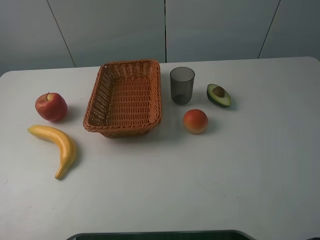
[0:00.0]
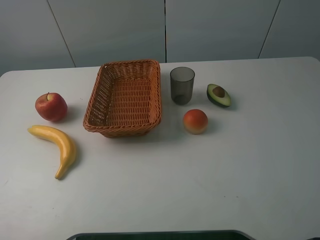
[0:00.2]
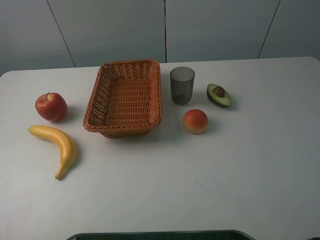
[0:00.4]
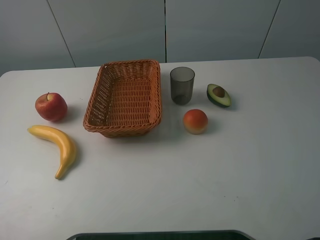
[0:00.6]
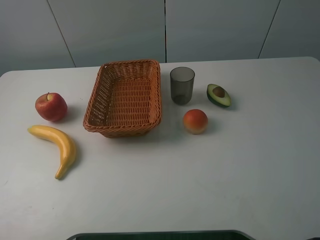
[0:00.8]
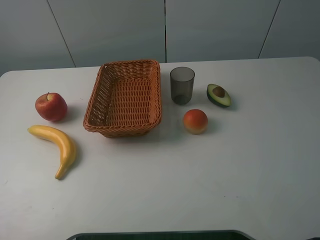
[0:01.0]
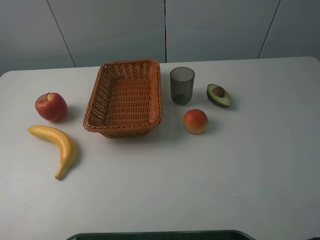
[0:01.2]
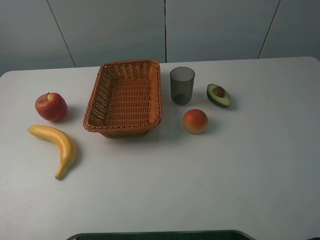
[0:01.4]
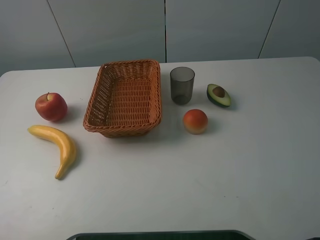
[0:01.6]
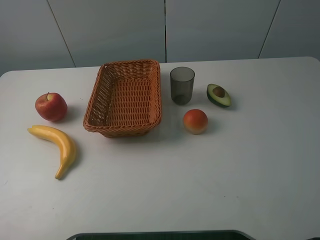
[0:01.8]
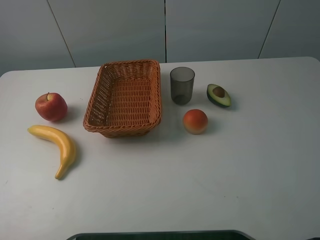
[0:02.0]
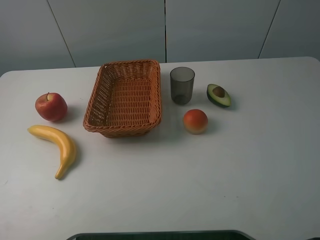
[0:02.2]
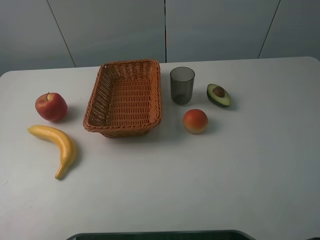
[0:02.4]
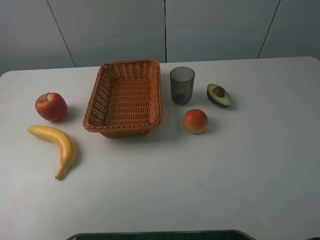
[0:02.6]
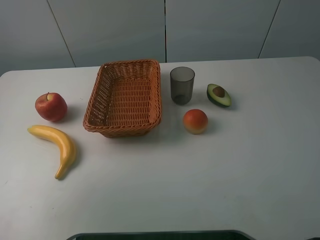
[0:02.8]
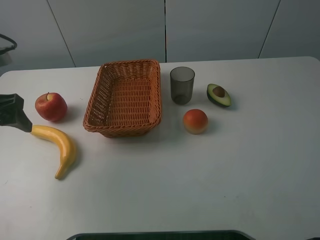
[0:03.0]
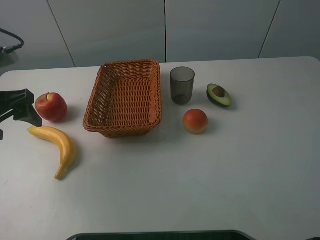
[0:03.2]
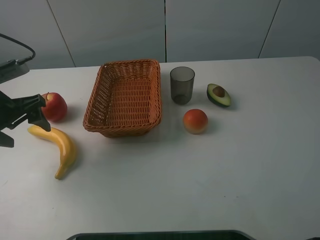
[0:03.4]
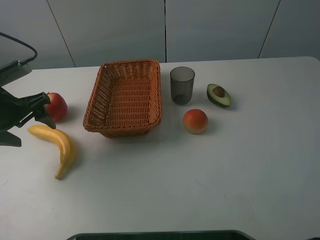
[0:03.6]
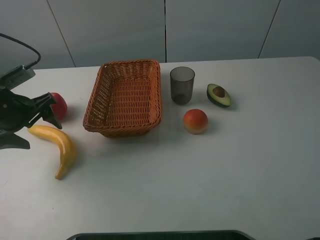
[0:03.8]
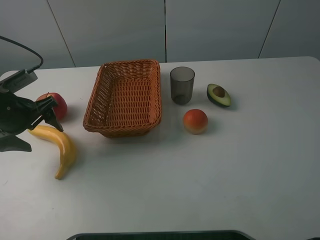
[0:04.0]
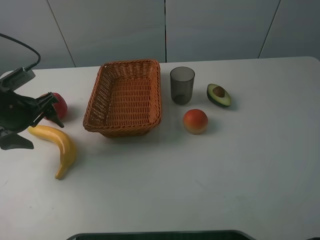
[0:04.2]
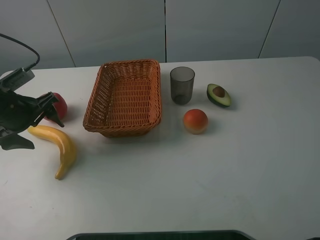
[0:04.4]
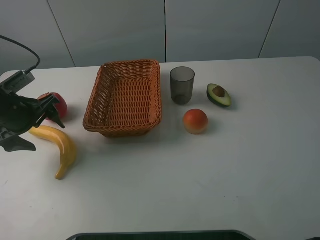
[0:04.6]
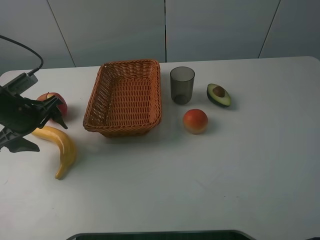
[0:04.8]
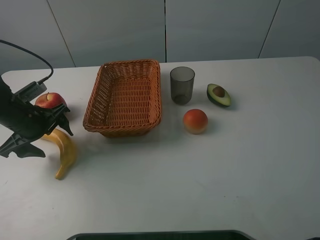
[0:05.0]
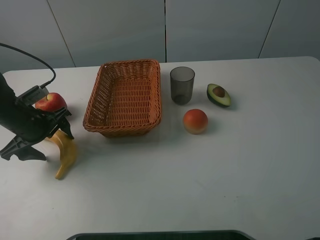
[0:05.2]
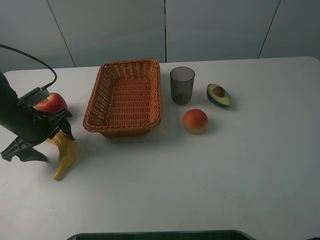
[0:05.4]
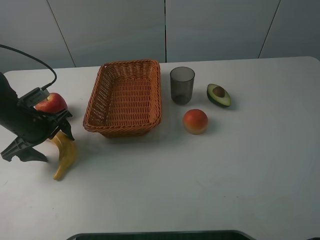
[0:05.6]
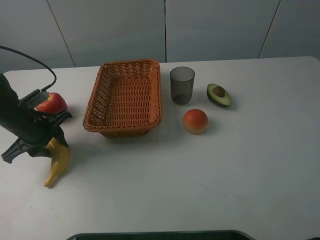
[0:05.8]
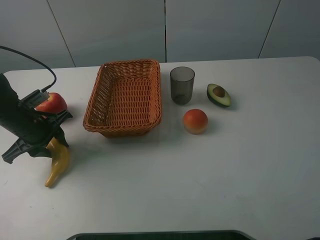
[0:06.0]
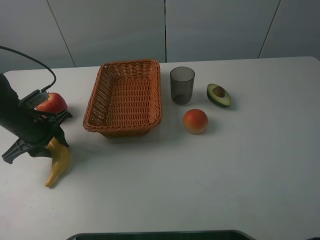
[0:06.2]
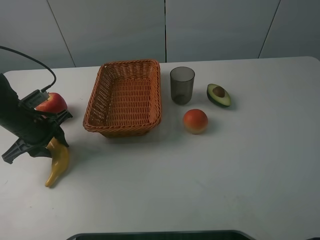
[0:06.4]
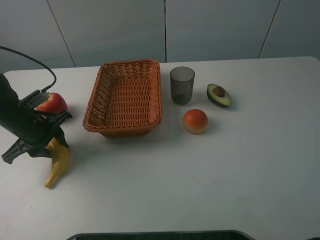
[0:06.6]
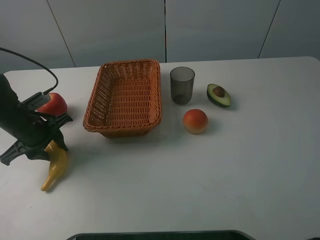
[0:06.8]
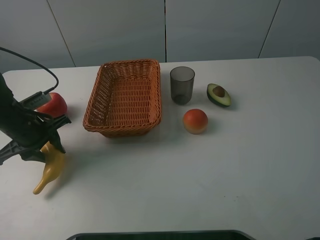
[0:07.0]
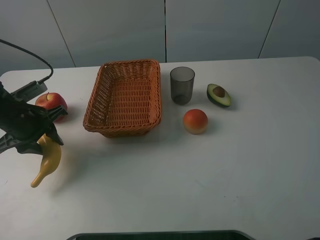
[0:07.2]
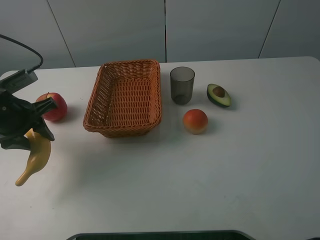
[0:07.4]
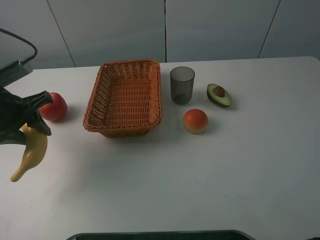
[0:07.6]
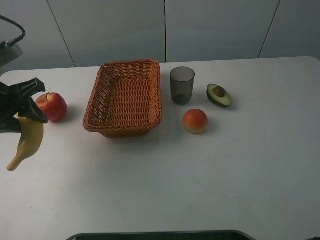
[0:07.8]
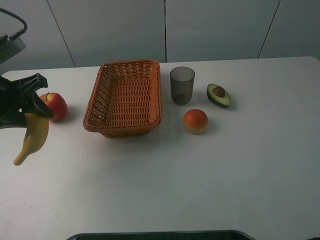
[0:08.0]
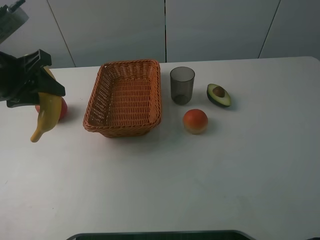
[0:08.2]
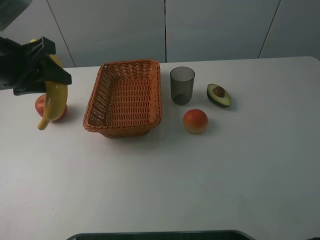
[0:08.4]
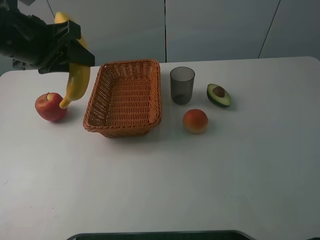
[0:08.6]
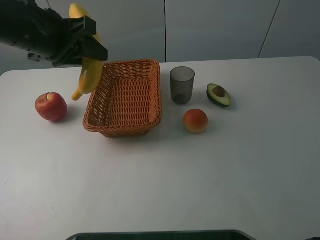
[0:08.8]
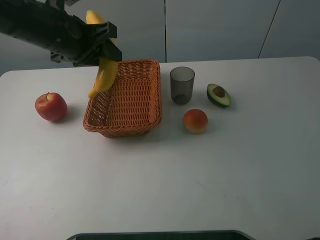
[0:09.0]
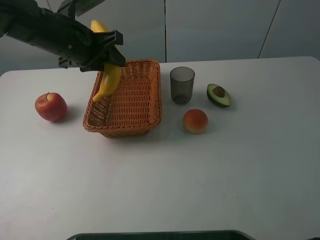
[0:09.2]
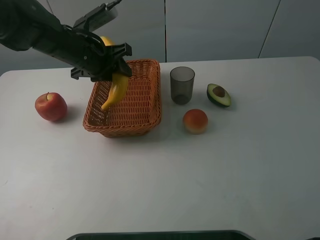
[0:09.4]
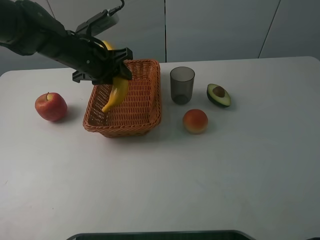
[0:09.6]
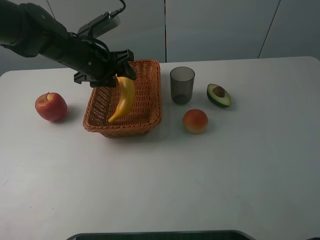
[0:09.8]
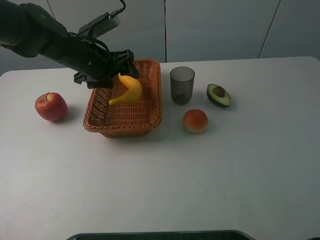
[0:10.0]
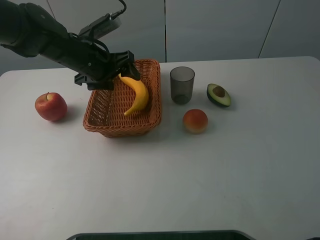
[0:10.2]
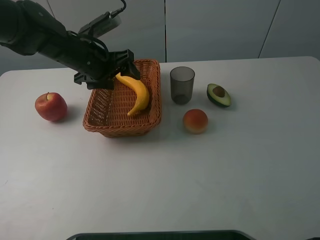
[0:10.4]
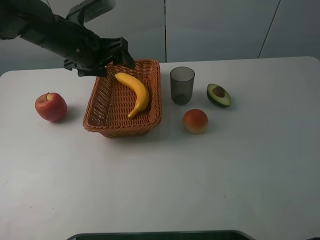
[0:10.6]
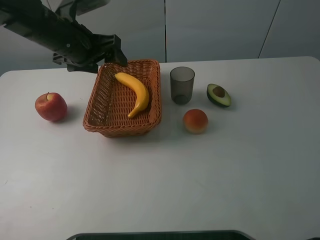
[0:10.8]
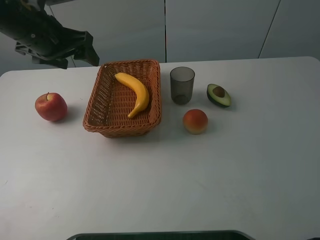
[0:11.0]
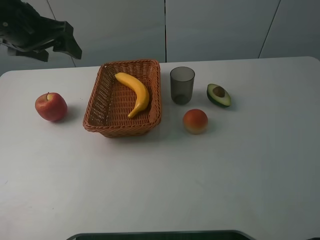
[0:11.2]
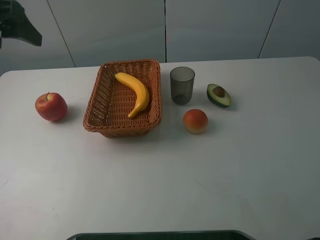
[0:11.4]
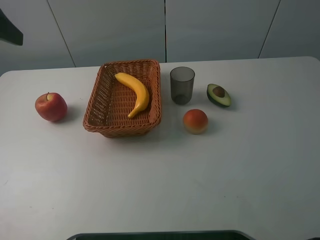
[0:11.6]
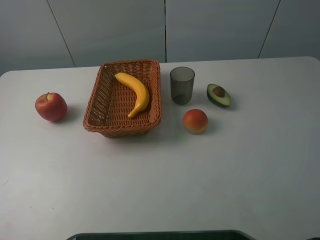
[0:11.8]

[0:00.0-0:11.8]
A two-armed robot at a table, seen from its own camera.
0:00.0 to 0:01.4: The two grippers keep their place.
0:01.4 to 0:03.0: The left gripper travels forward by about 20 cm.
0:03.0 to 0:04.4: The left gripper moves downward and forward, roughly 10 cm.
0:04.4 to 0:06.0: The left gripper travels downward by about 5 cm, and closes its fingers.
0:06.0 to 0:07.4: The left gripper travels upward by roughly 10 cm.
0:07.4 to 0:08.8: The left gripper travels upward and to the right by about 15 cm.
0:08.8 to 0:10.4: The left gripper moves downward and forward, roughly 10 cm, and opens its fingers.
0:10.4 to 0:11.8: The left gripper goes about 30 cm backward, upward and to the left.

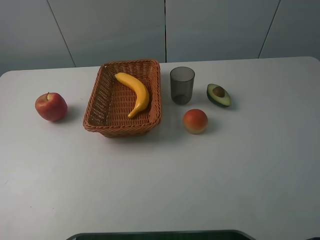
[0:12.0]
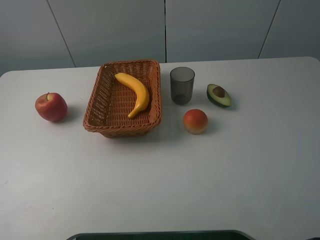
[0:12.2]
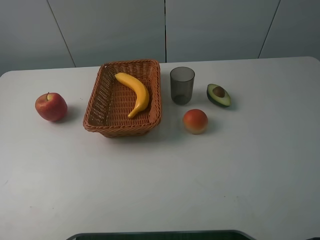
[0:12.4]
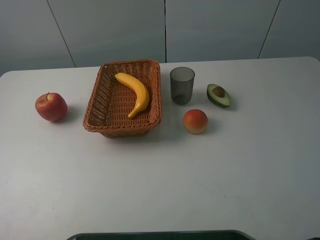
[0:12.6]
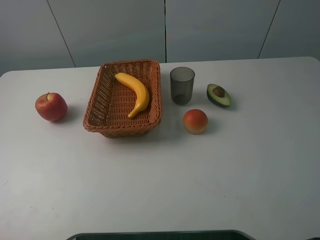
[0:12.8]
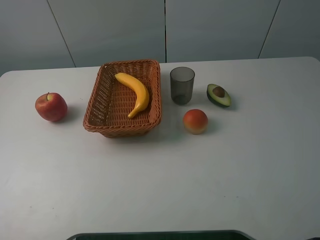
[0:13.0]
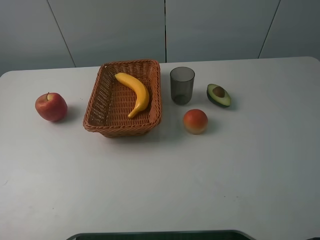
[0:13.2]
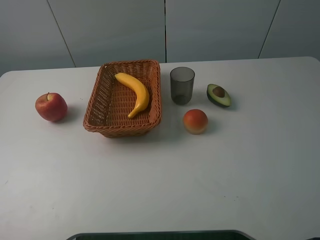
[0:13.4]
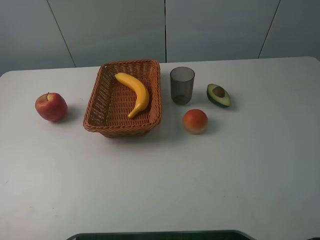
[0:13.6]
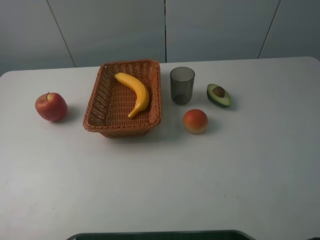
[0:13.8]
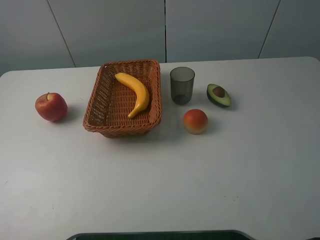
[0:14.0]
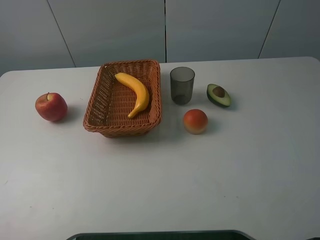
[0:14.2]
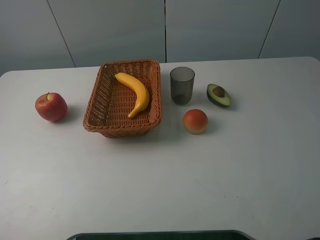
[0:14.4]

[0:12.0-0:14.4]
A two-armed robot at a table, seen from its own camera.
0:13.2 to 0:14.4: Neither gripper changes place.
